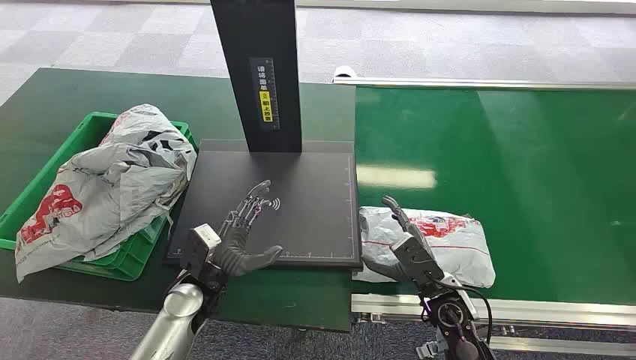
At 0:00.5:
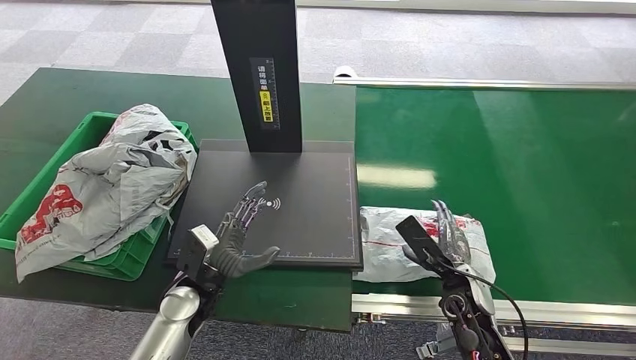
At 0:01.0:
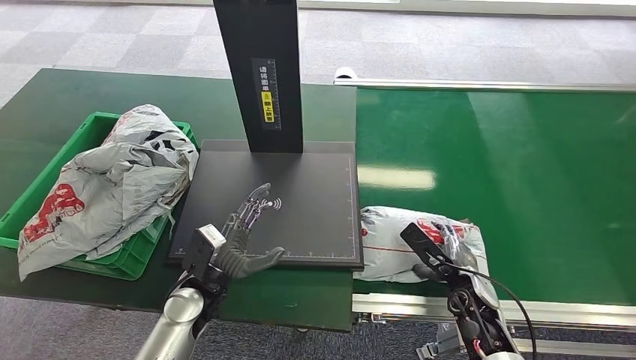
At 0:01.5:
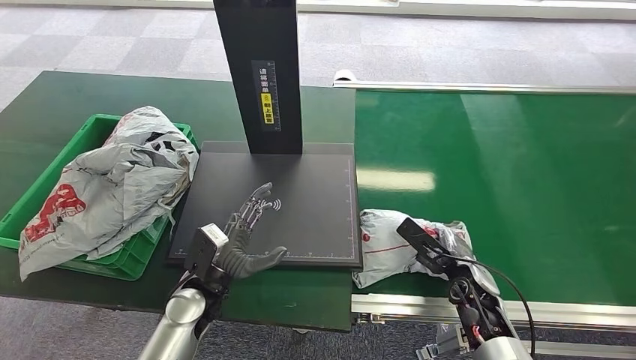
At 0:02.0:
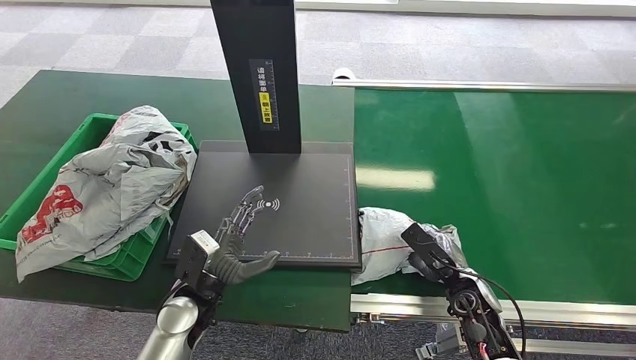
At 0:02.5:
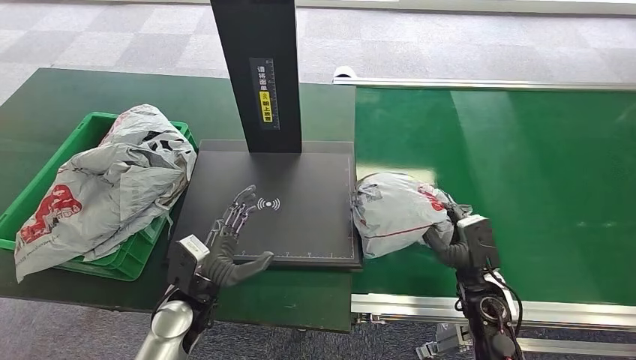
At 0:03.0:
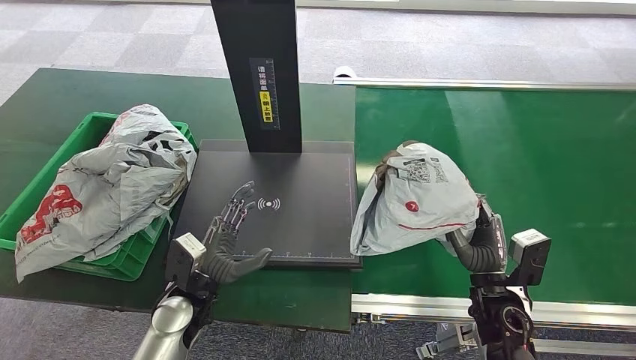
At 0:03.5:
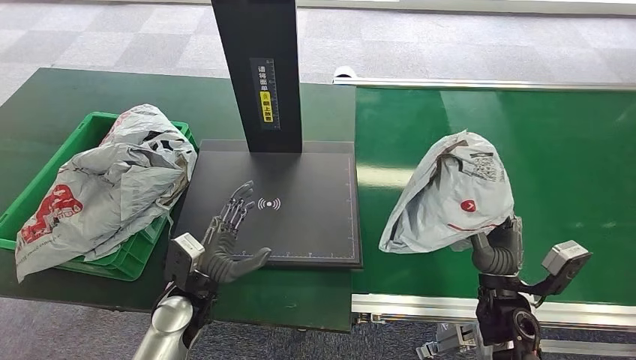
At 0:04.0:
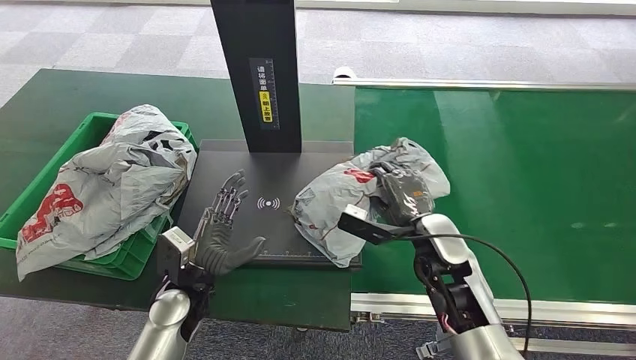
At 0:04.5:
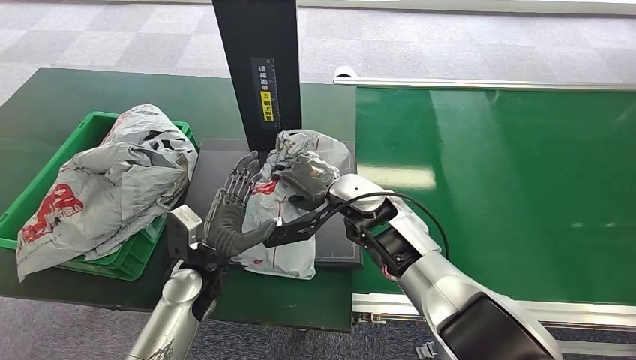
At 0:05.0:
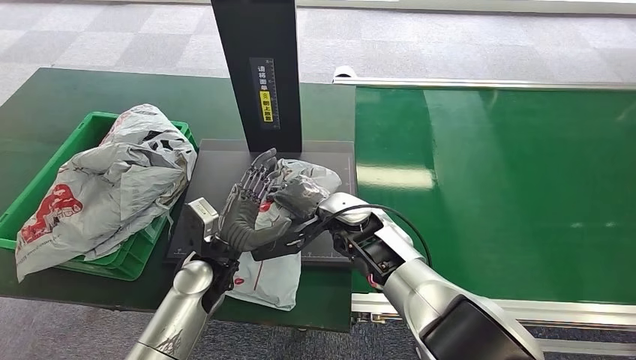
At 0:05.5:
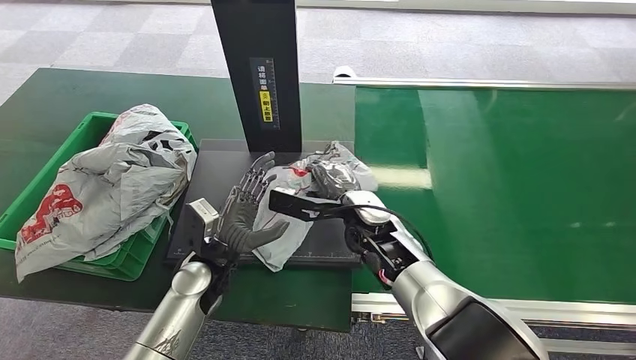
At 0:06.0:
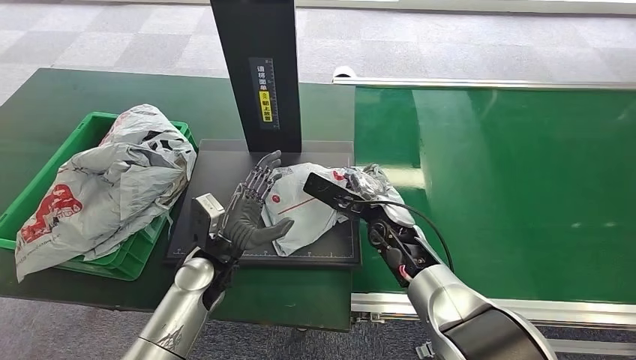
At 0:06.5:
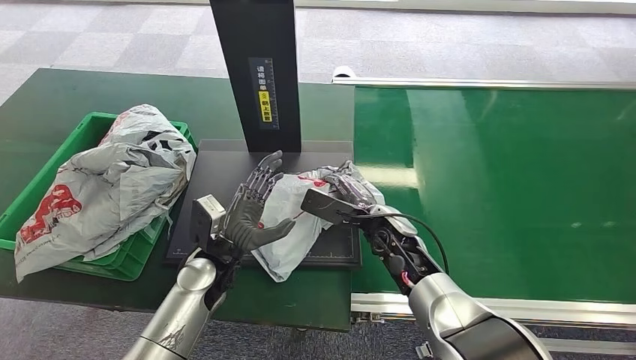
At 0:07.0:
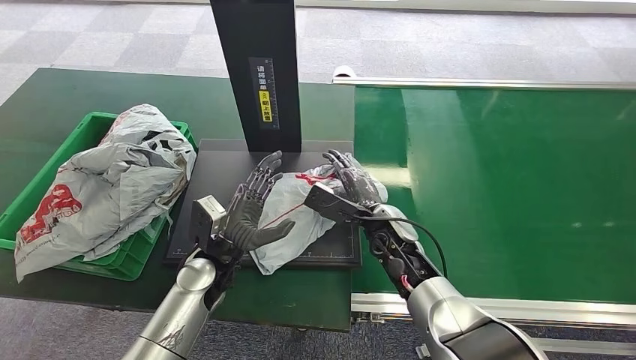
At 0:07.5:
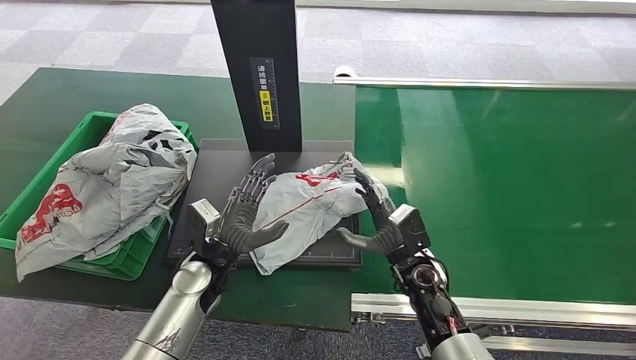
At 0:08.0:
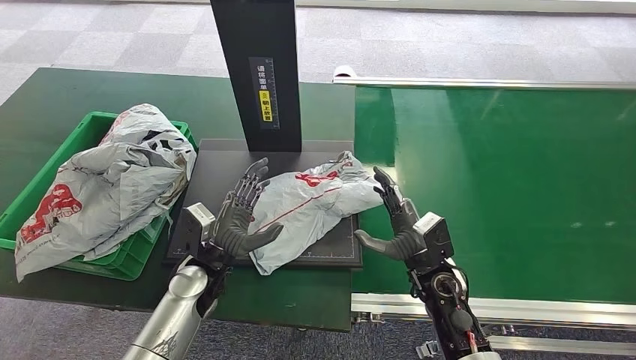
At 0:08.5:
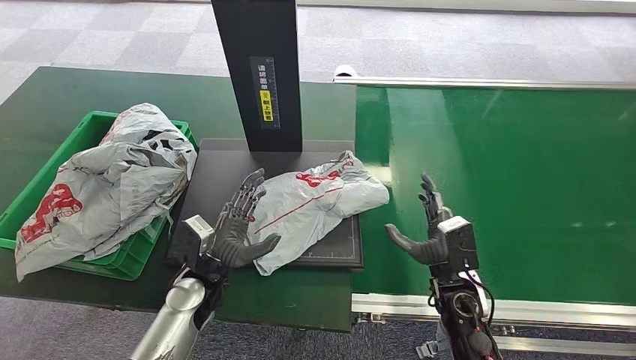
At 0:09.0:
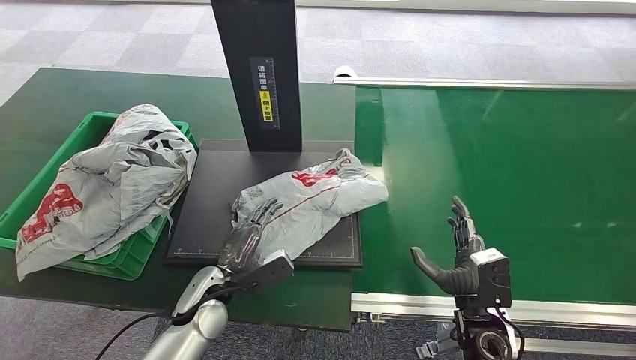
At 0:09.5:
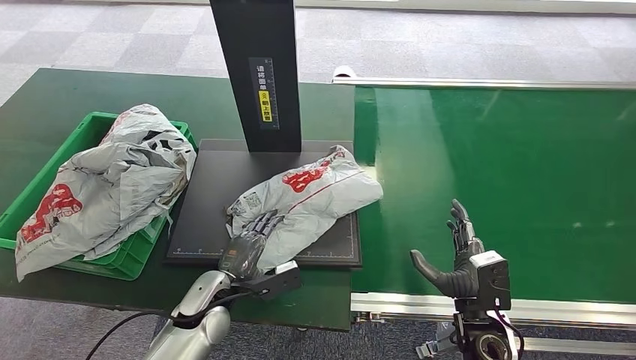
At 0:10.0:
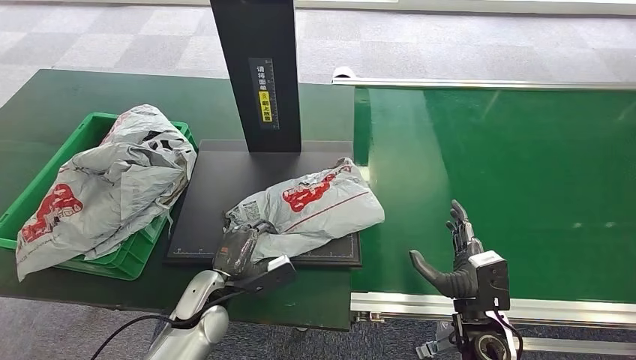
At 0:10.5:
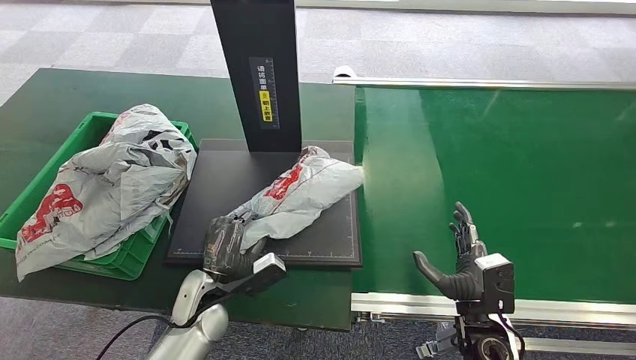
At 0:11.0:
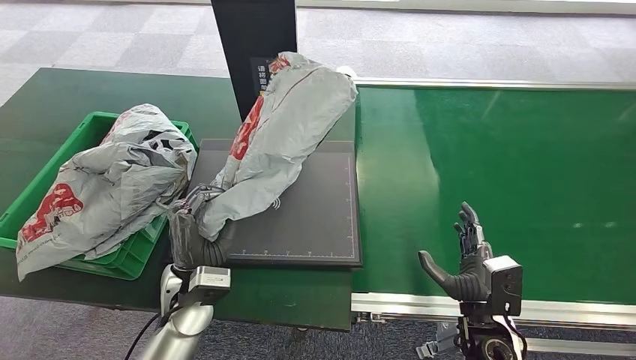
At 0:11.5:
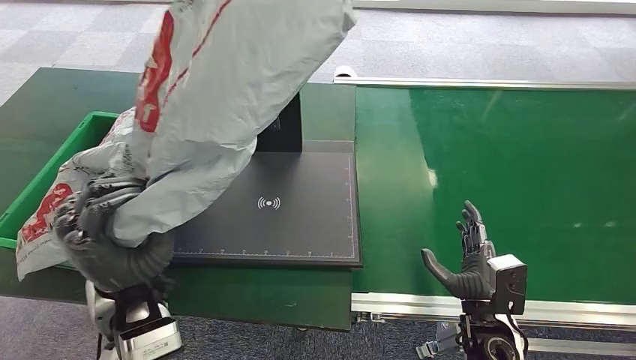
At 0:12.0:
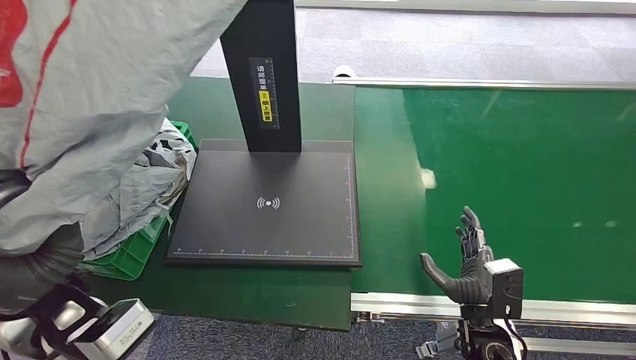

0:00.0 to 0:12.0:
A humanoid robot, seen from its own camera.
Step, 0:00.0 to 0:02.5: Pick up the package from the conveyor belt.
Step, 0:03.5 to 0:07.5: Place the package onto the inbound machine.
Step, 0:08.0 to 0:11.0: Pick up the package from the inbound machine.
0:02.0 to 0:04.0: The right hand shifts some 15 cm upward, to the left and forward.
0:04.0 to 0:06.0: The left hand ends up about 5 cm from where it was. The right hand heads to the left, covering approximately 5 cm.
0:06.0 to 0:08.0: The right hand moves backward, to the right and downward, approximately 10 cm.
0:08.0 to 0:10.0: The left hand ends up about 5 cm from where it was, while the right hand travels backward by roughly 10 cm.

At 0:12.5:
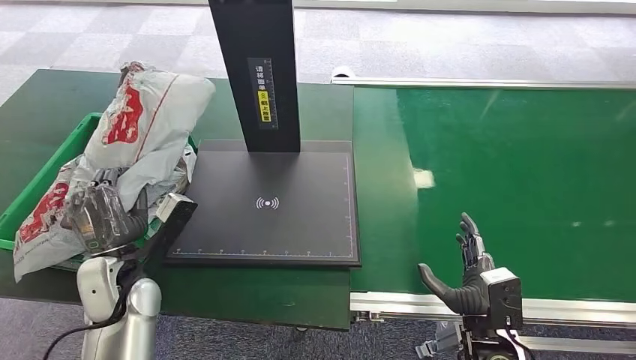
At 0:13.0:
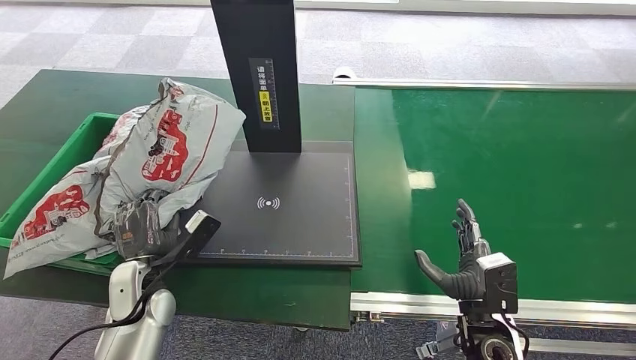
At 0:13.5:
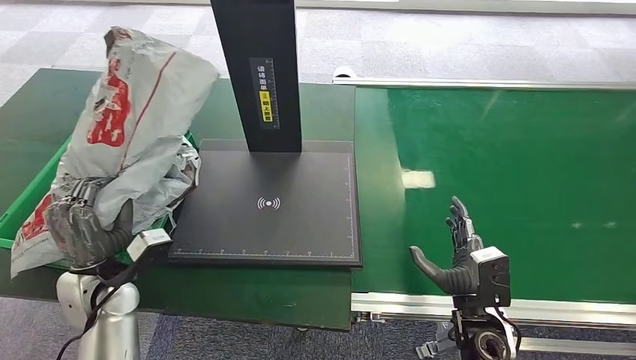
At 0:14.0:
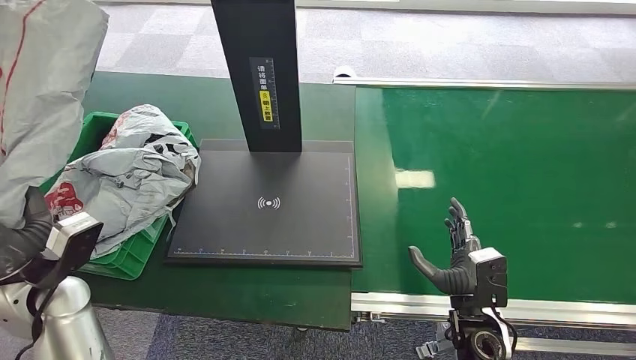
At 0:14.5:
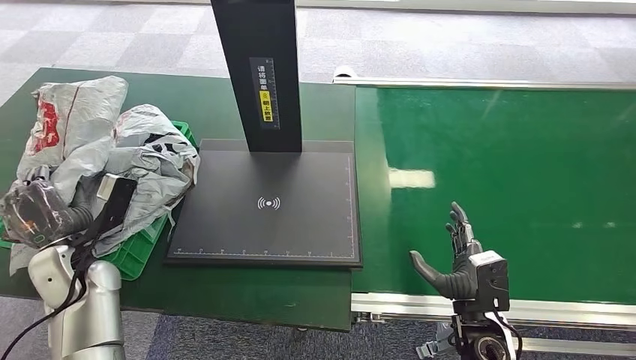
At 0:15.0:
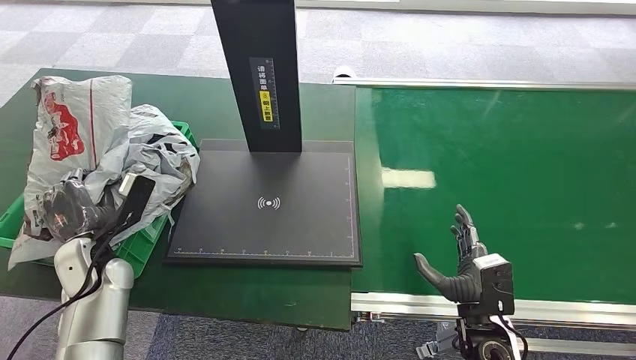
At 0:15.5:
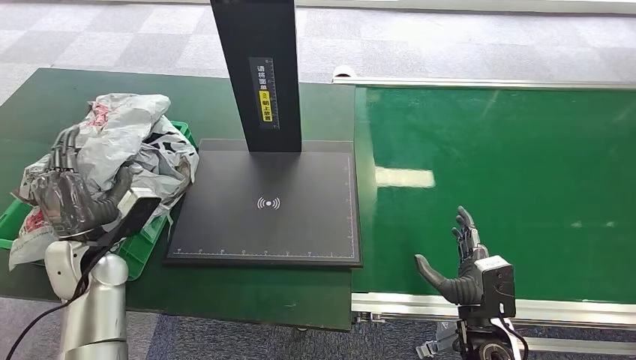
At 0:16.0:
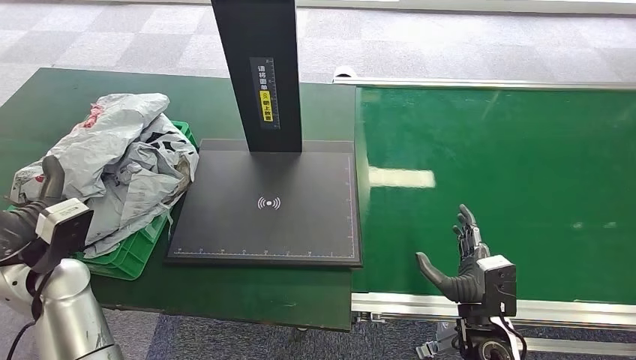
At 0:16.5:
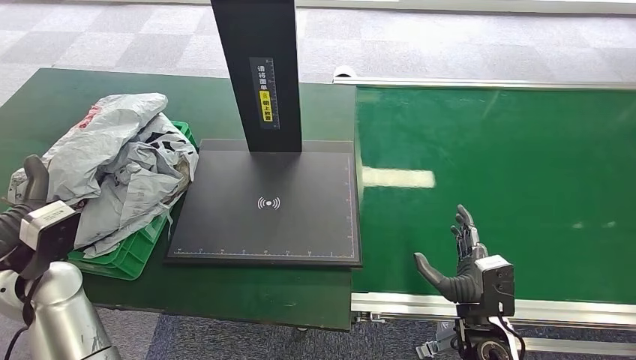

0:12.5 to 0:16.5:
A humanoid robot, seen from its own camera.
Step, 0:12.5 to 0:16.5: Place the package into the parcel locker.
0:14.5 to 0:16.5: The left hand is displaced upward by approximately 5 cm.
